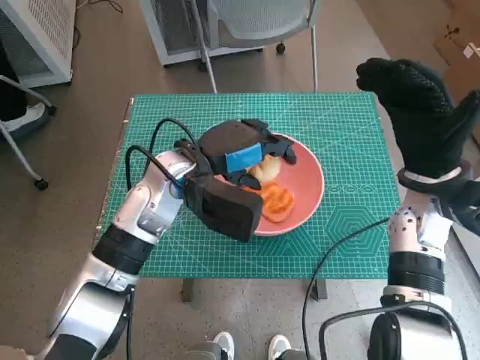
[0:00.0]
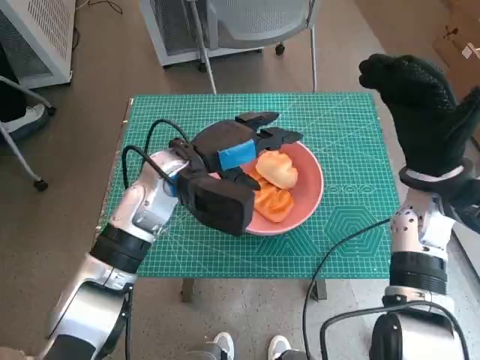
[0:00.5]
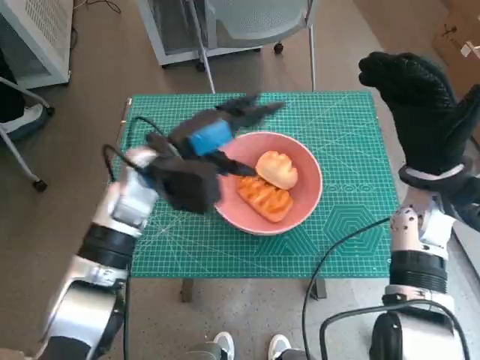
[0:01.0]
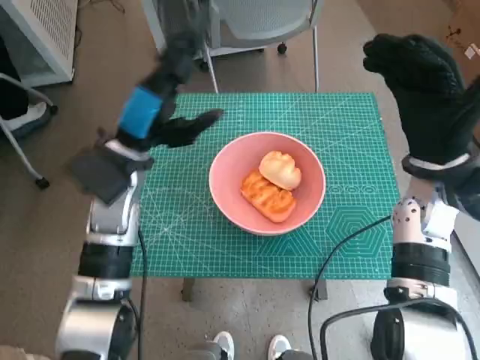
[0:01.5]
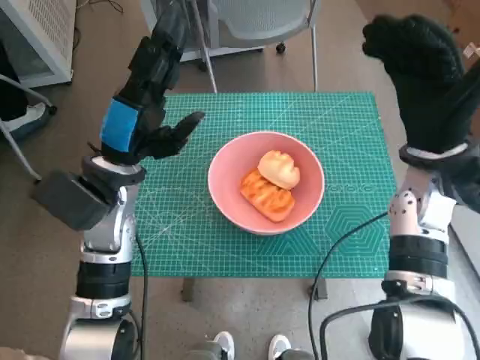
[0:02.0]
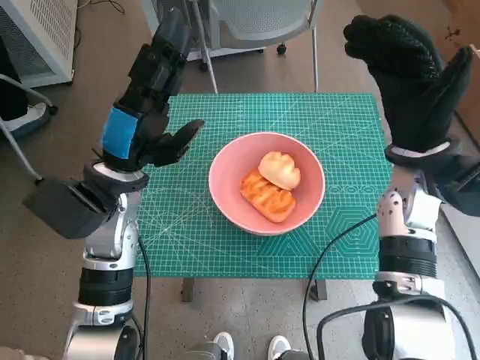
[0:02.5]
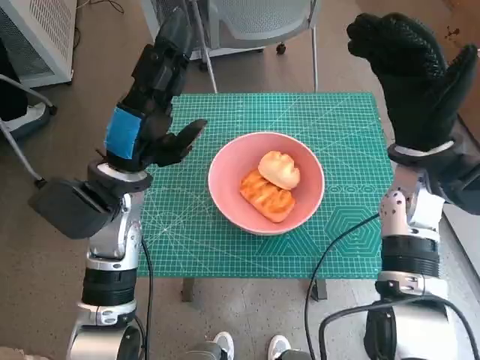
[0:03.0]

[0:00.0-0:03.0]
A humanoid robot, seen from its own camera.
0:00.0 to 0:01.5: The left hand moves to the left, approximately 5 cm.
